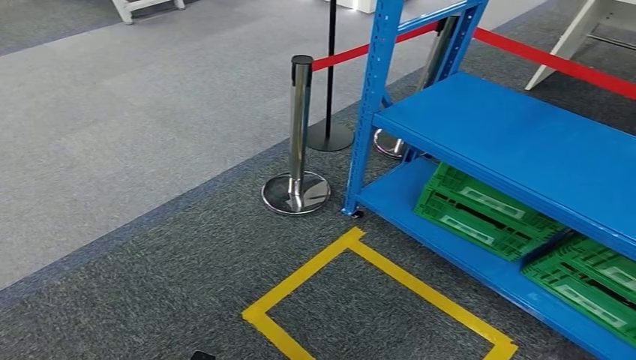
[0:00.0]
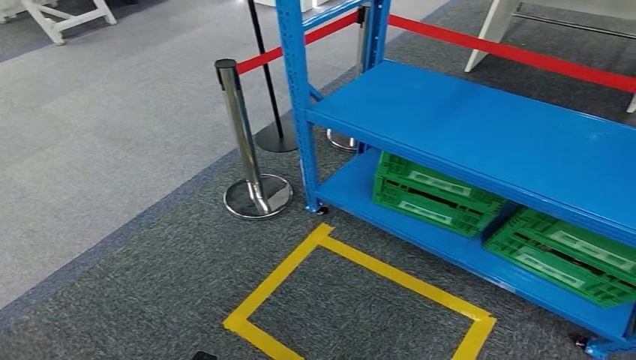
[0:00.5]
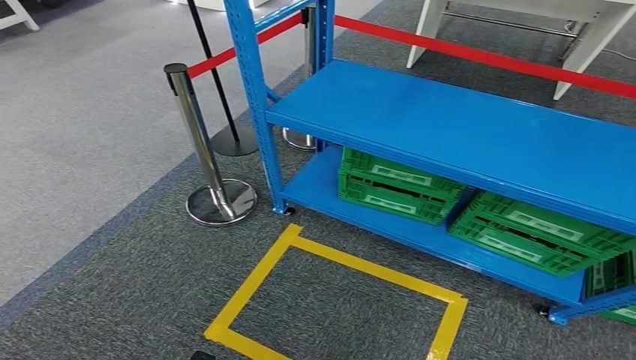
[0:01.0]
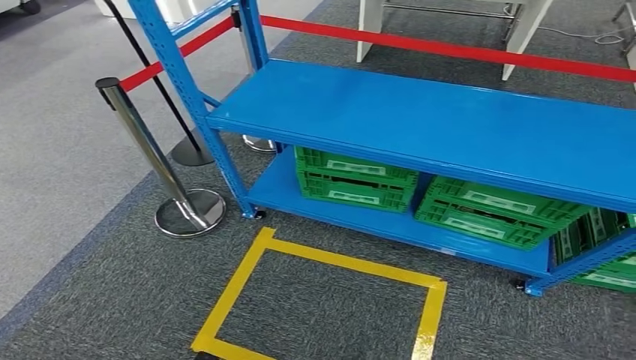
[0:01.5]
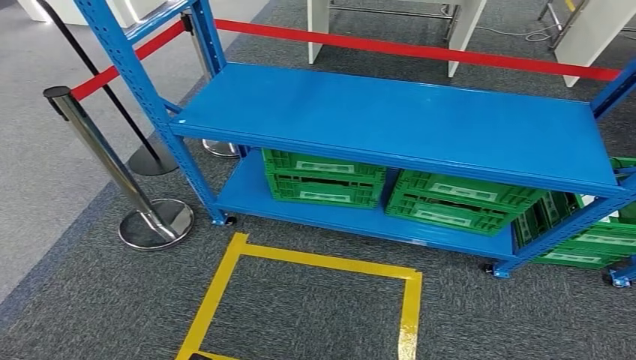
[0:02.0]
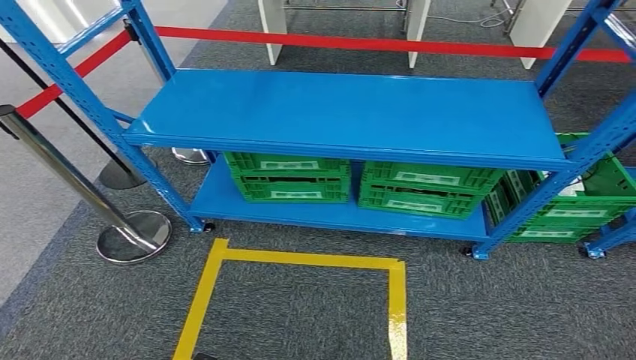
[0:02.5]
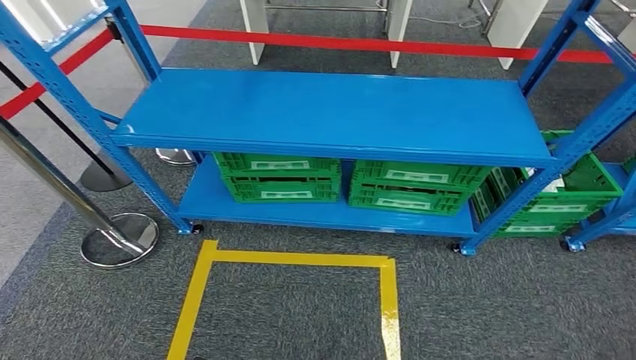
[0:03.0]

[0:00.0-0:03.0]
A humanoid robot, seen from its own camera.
Step, 0:00.0 to 0:03.0: Move to the initial position at the workbench.
